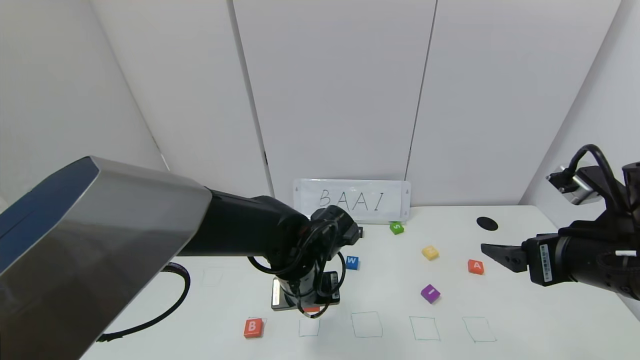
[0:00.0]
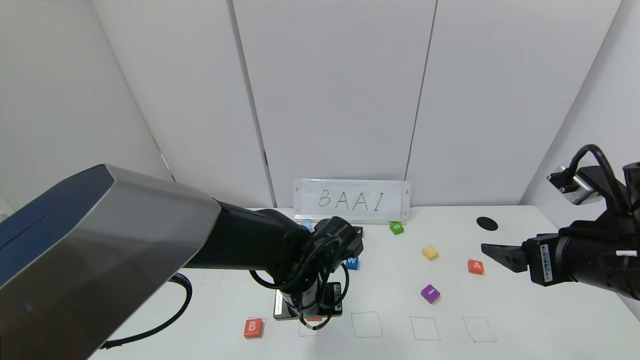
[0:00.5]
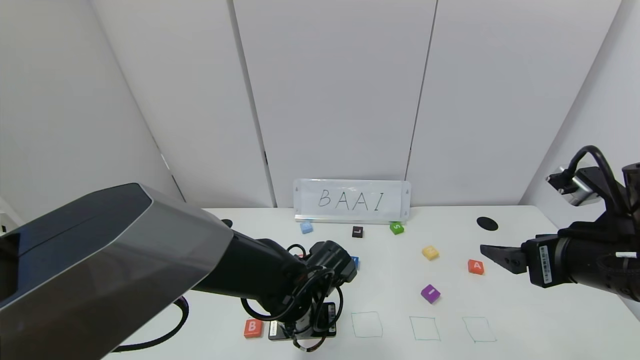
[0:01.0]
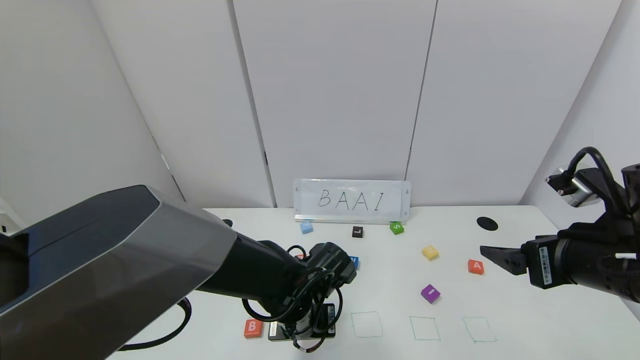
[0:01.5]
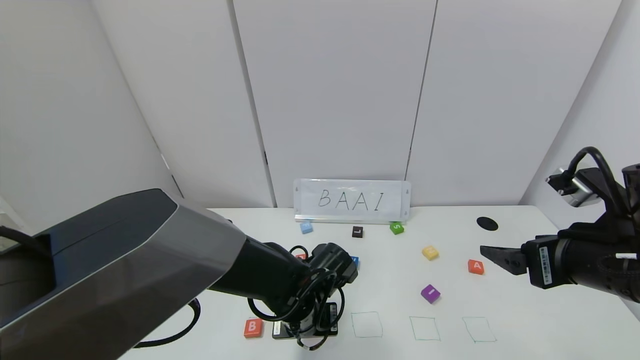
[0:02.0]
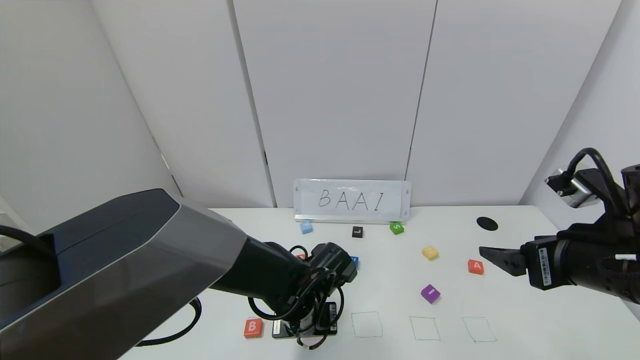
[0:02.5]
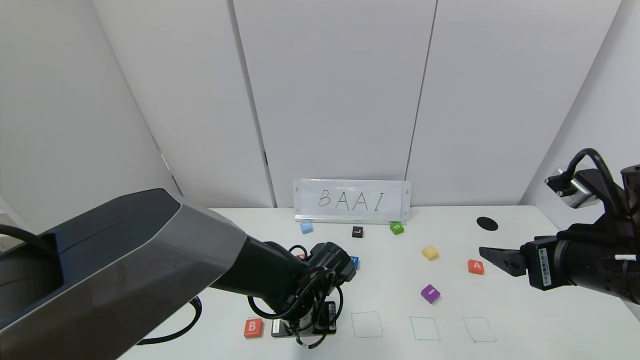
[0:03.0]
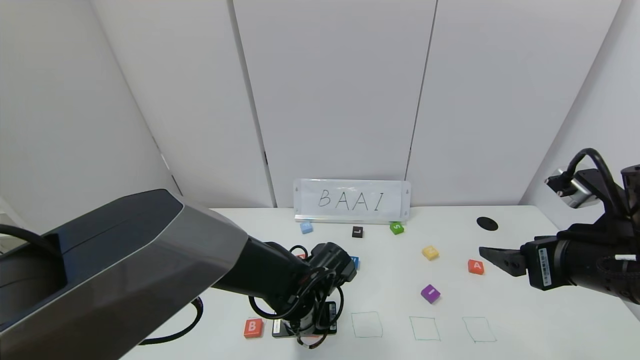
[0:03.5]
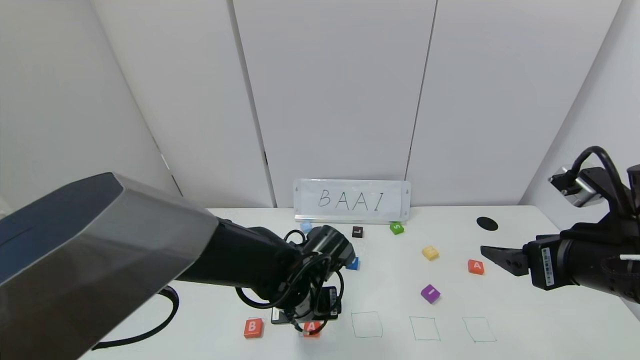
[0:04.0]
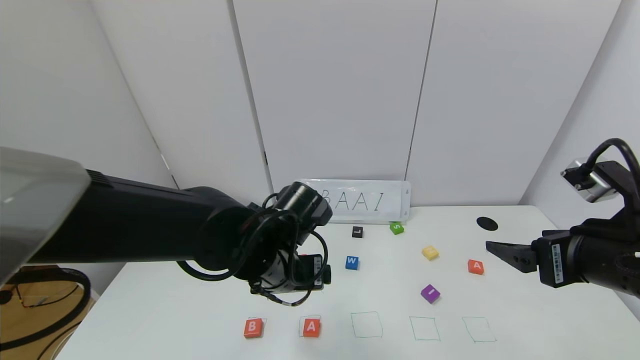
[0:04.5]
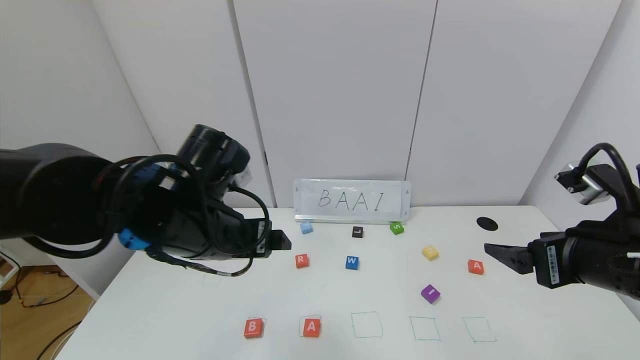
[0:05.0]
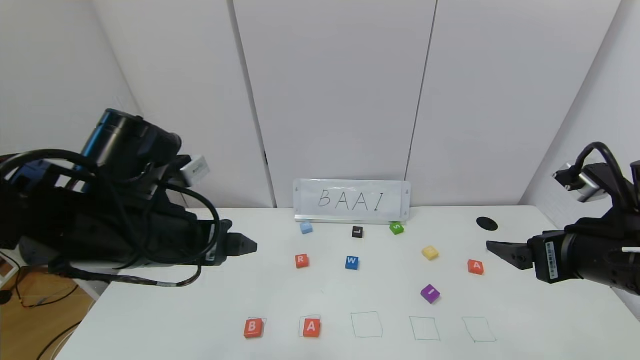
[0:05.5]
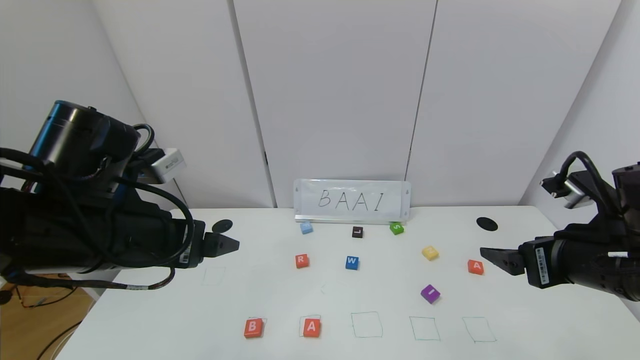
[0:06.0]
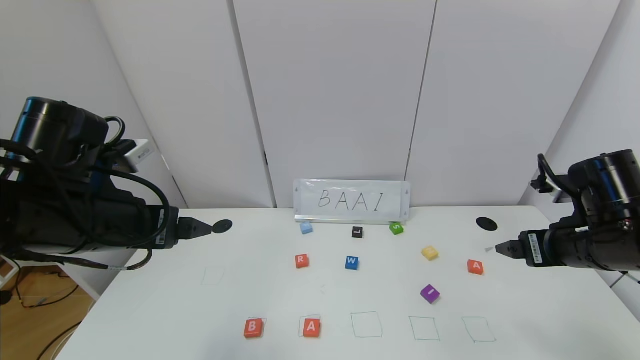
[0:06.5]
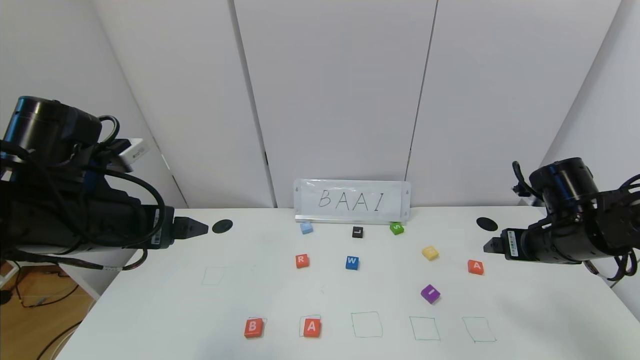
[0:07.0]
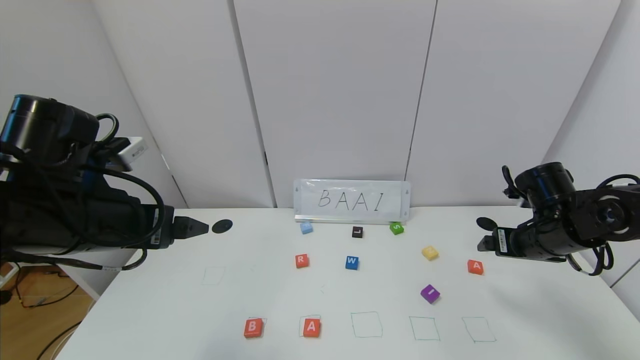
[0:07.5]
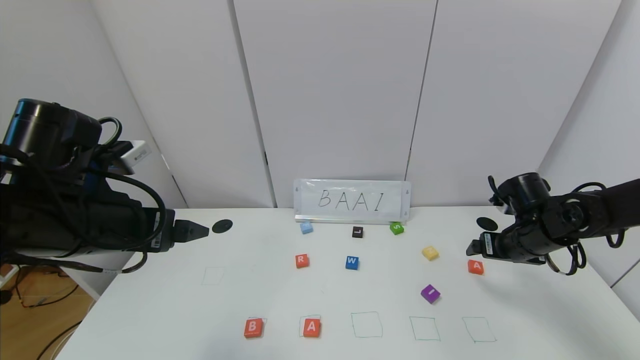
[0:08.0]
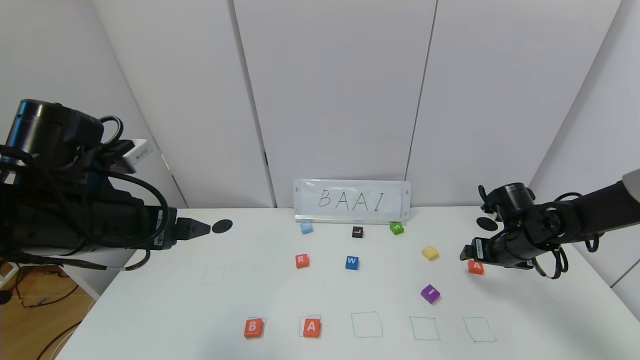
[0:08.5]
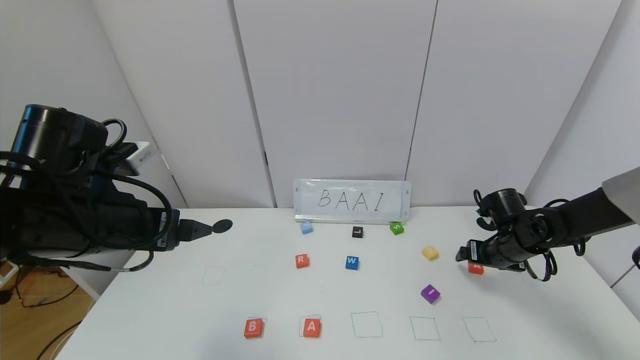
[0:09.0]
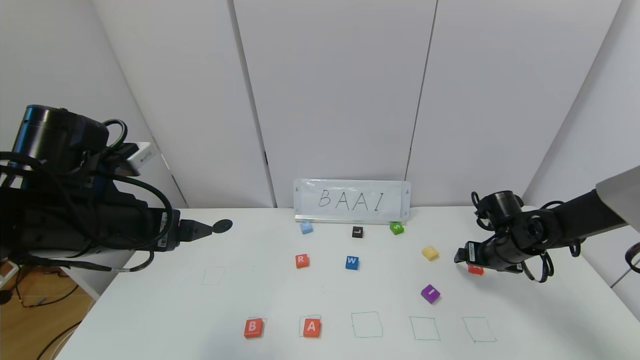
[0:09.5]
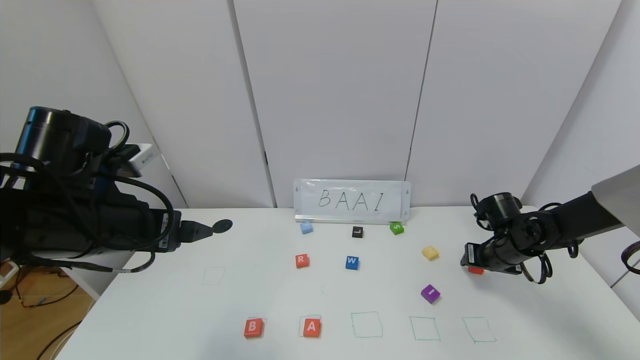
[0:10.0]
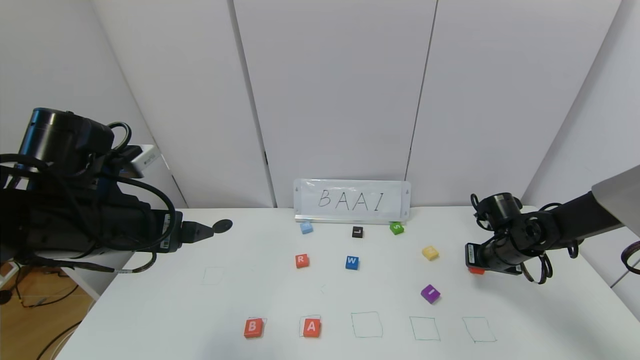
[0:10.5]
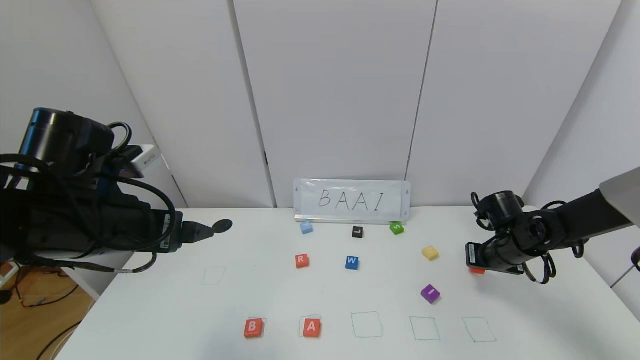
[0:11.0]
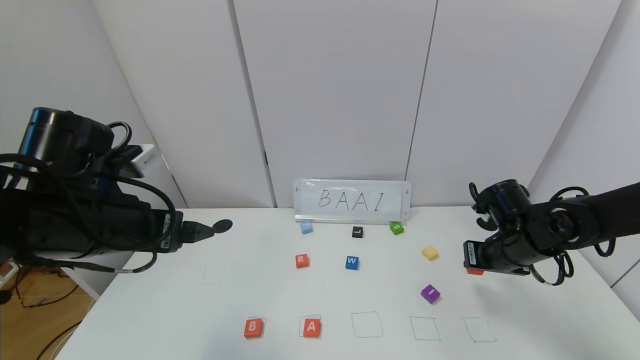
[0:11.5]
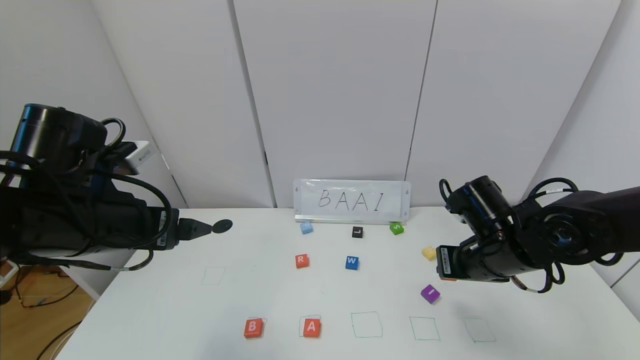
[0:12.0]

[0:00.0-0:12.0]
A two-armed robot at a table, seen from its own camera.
Task of the whole recording: use the gripper to find blocks with the letters b, a, a, and i on the table and arrange them into BAAI, then find r and N and turn the arranged baai into brian.
Step, 0:00.0 to 0:03.5: Place the first block A in the second location.
0:00.0 to 0:02.0: The left gripper shifts roughly 5 cm downward.
0:02.0 to 0:04.0: The left gripper opens.
0:04.0 to 0:06.0: The left gripper moves upward, to the left and backward, about 25 cm.
0:06.0 to 0:08.0: The right gripper shifts about 20 cm forward and downward.
0:08.0 to 0:10.0: The right gripper moves downward, about 5 cm, and closes its fingers.
0:10.0 to 0:12.0: The right gripper moves to the left, backward and upward, some 20 cm, and closes up.

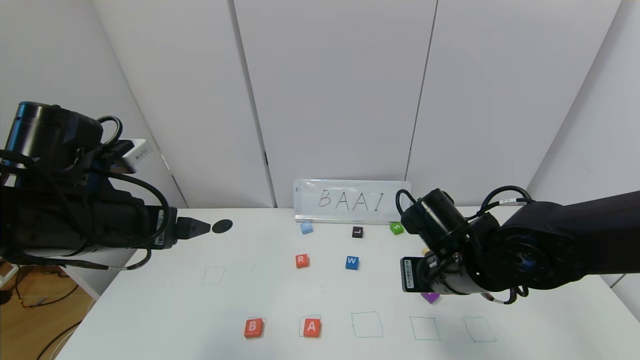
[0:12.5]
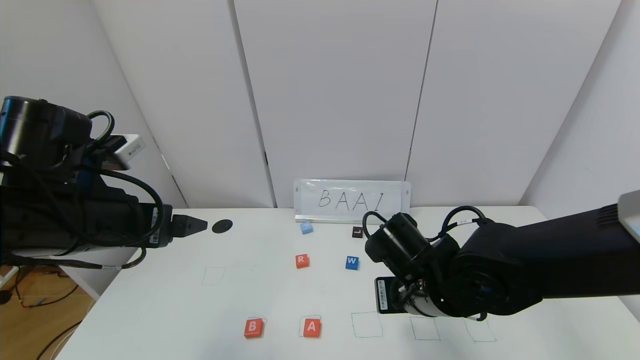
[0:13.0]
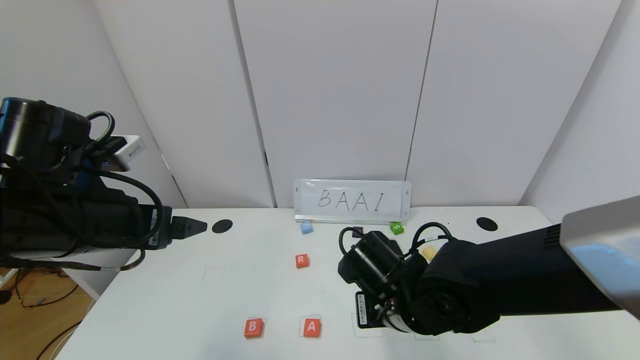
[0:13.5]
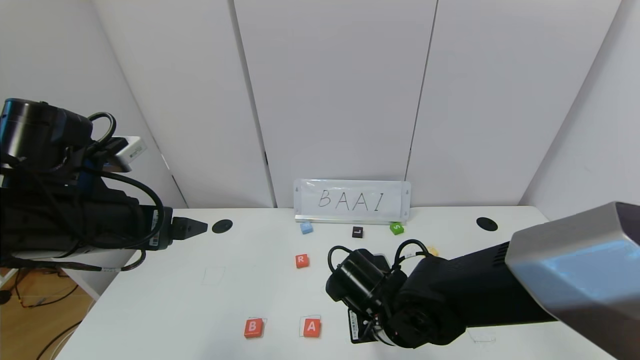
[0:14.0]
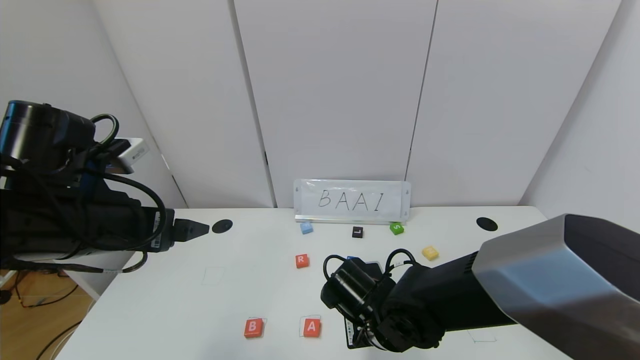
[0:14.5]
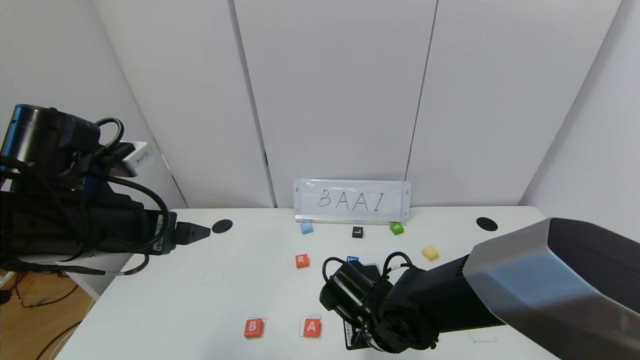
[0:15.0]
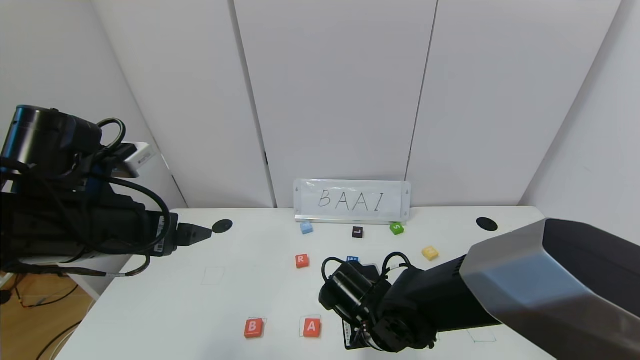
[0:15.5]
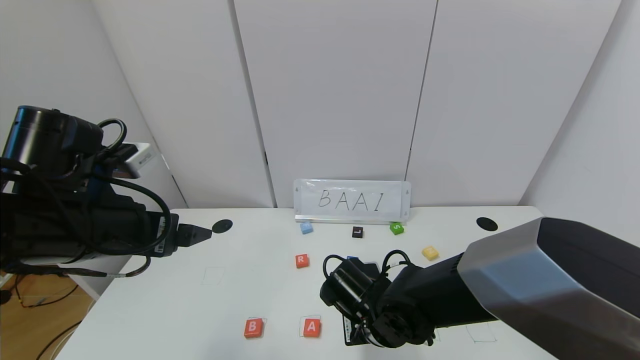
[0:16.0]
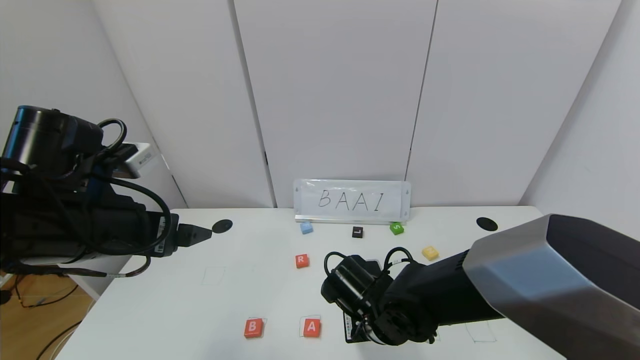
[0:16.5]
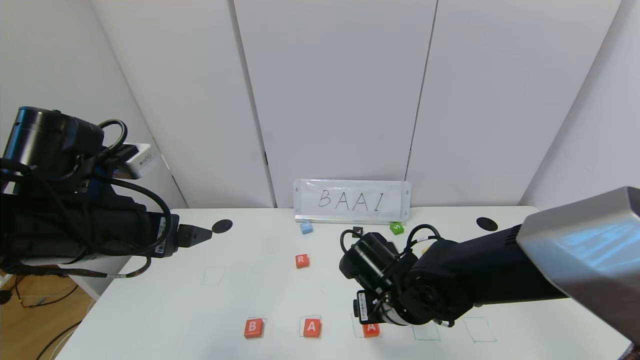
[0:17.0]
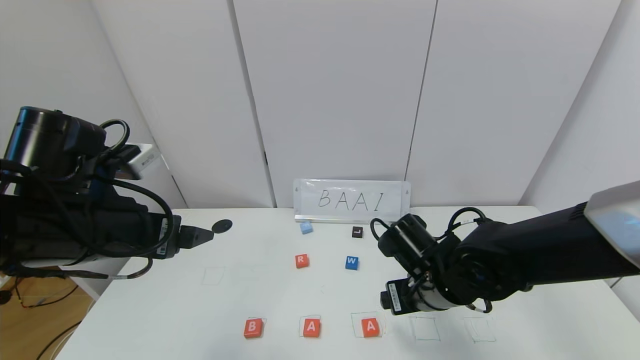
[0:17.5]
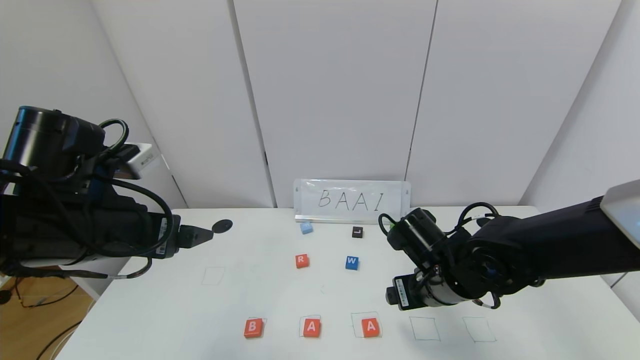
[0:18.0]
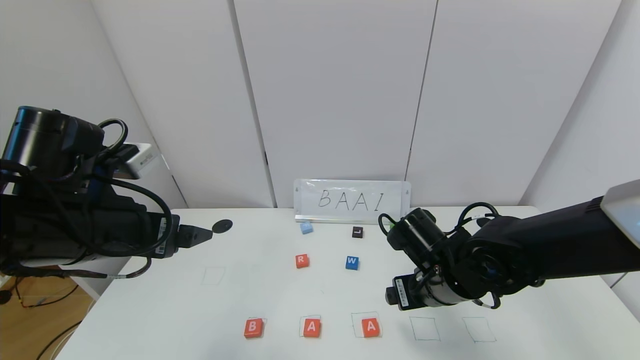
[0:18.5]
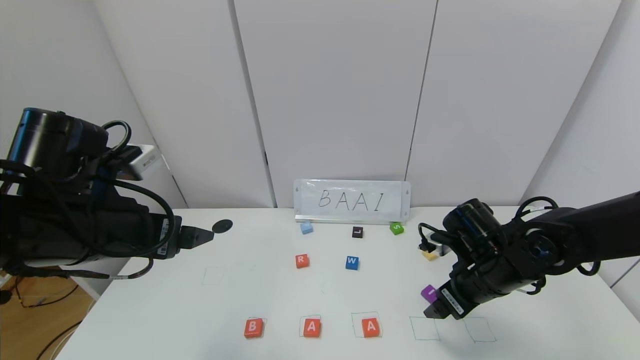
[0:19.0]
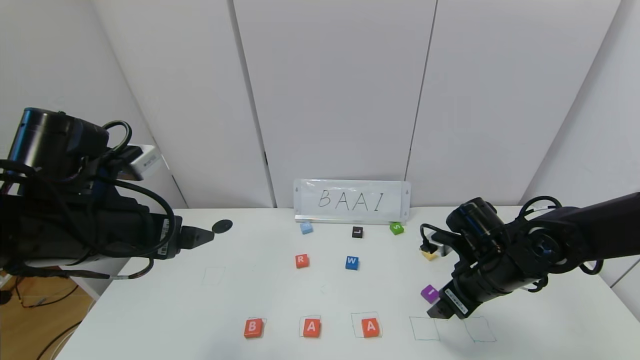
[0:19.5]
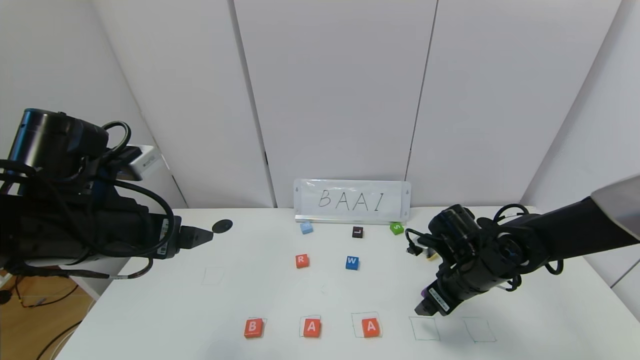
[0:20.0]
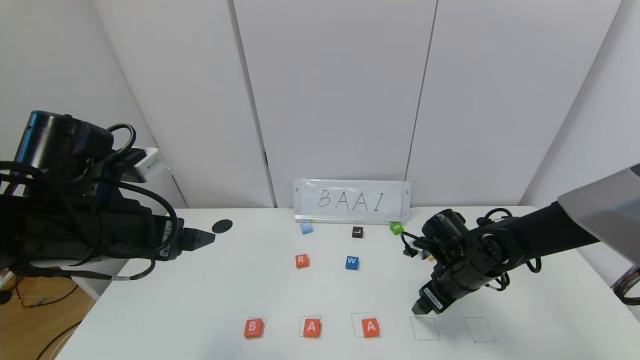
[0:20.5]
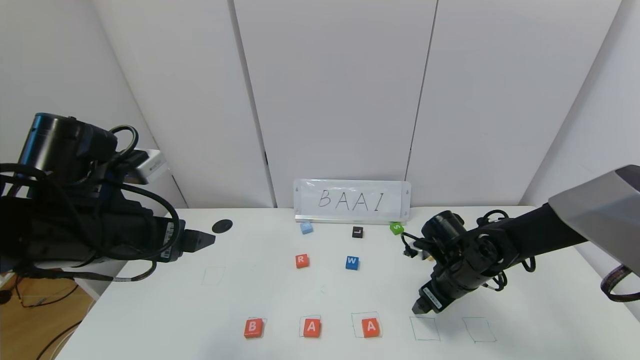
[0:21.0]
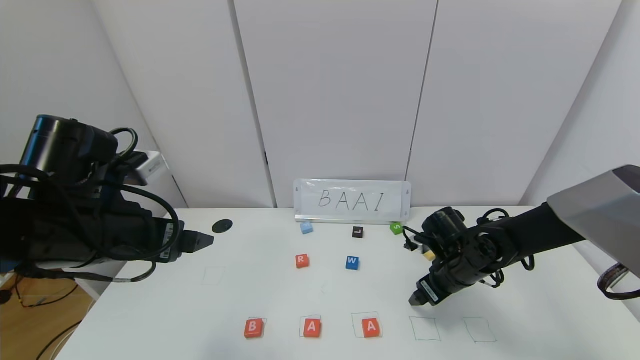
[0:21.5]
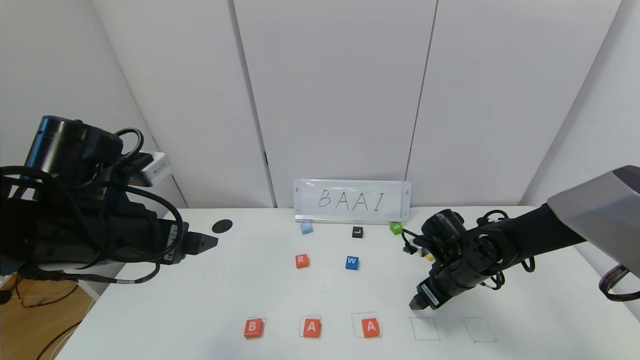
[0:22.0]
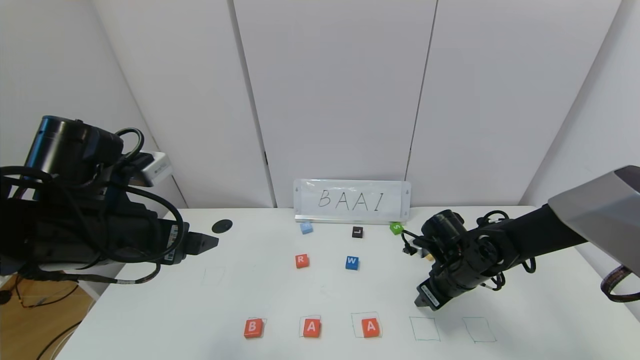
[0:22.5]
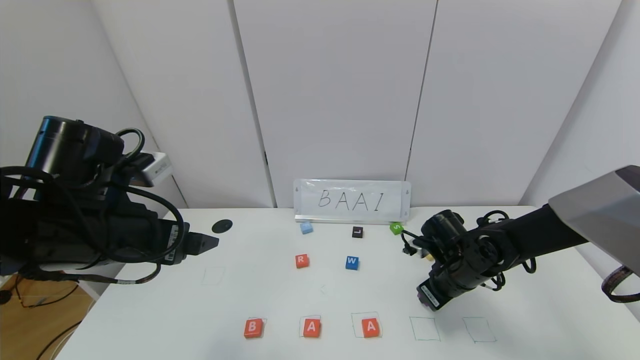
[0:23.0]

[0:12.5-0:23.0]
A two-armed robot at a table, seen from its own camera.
Task of the whole recording: use the gripper to find blocks with the letters b, a, a, and i on the table and arrange them into BAAI, then find r and N and turn the arranged baai into brian.
Step, 0:12.5 to 0:16.5: Place the second block A in the third location.
0:12.5 to 0:14.5: The right gripper travels downward and to the left by approximately 15 cm.
0:14.5 to 0:16.5: The right gripper opens up.
0:16.5 to 0:19.0: The right gripper is displaced to the right by some 15 cm, and opens.
0:19.0 to 0:21.0: The right gripper goes some 5 cm downward.
0:21.0 to 0:23.0: The right gripper closes.
